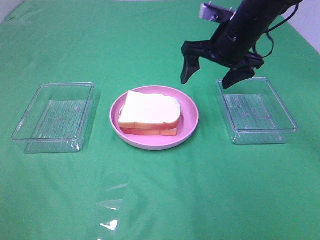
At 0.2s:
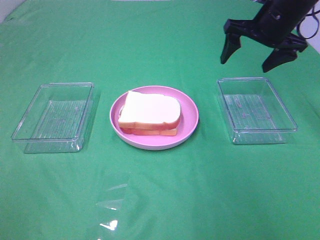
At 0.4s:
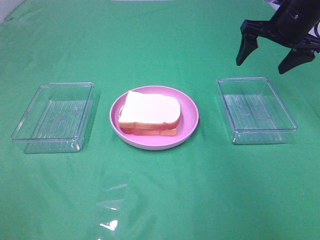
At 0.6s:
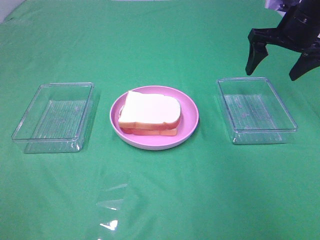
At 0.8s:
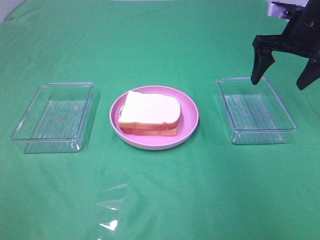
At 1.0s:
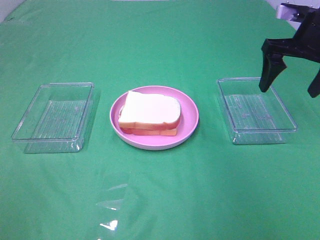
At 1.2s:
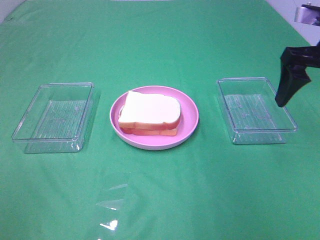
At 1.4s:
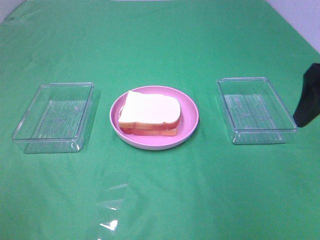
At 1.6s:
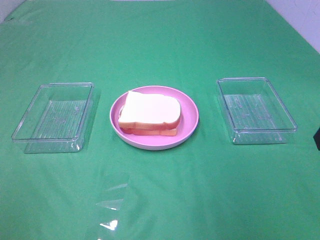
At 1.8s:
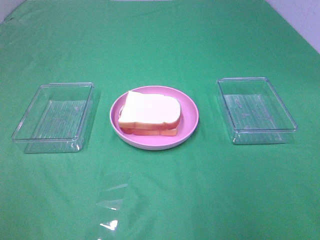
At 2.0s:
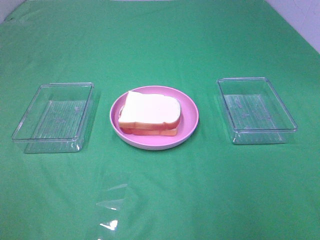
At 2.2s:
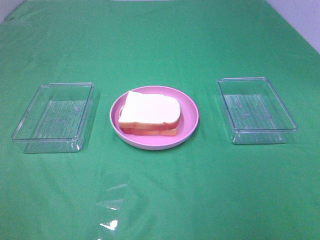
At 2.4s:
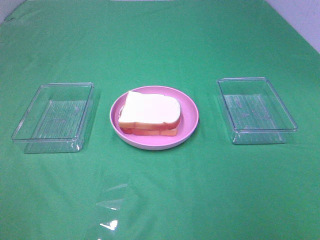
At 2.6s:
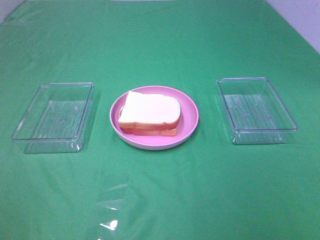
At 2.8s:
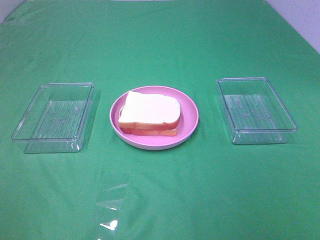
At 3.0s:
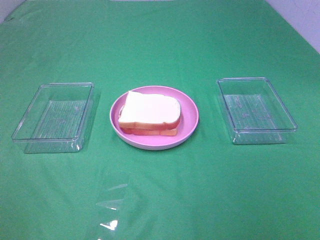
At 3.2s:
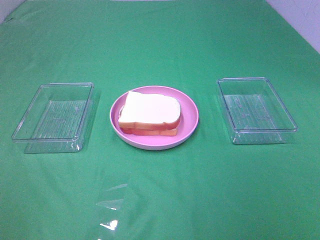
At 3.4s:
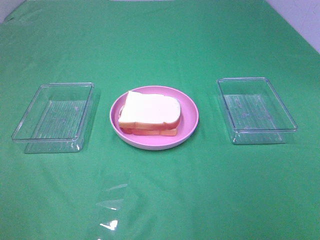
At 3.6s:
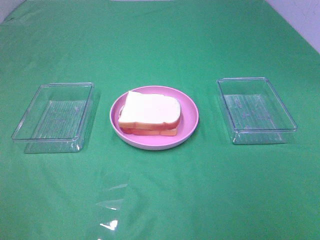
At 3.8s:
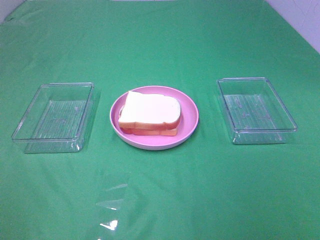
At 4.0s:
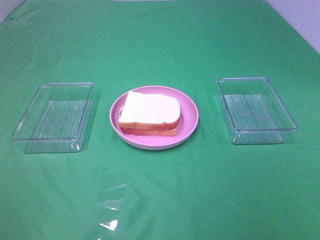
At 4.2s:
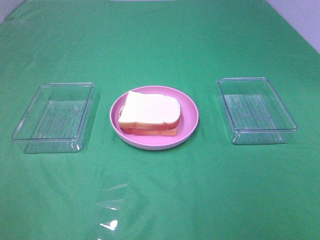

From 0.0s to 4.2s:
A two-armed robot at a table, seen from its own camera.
Task of the whole recording: Make sandwiches.
From 0.0s to 1.4s: The right gripper heads backward and to the right, covering roughly 20 cm.
From 1.4s to 2.8s: The right gripper shifts about 25 cm backward.
From 2.8s to 4.2s: The two grippers keep their place.

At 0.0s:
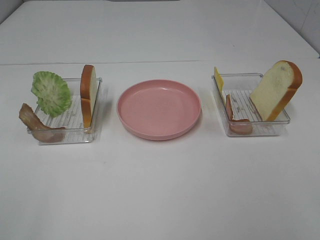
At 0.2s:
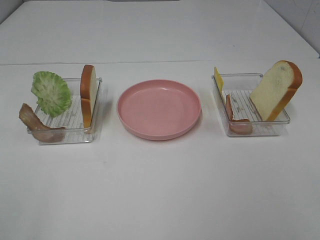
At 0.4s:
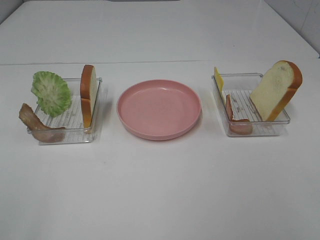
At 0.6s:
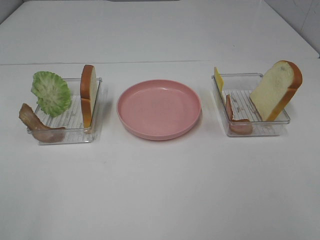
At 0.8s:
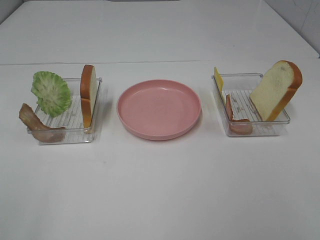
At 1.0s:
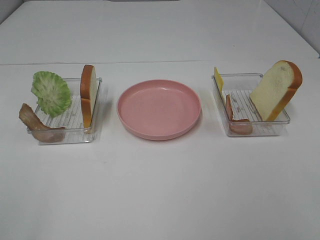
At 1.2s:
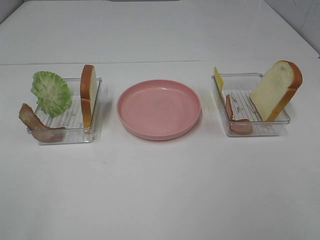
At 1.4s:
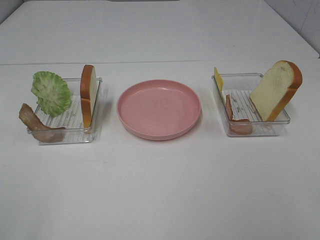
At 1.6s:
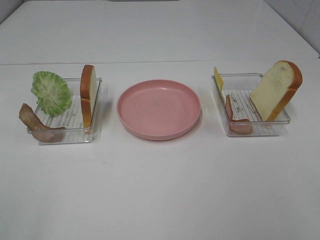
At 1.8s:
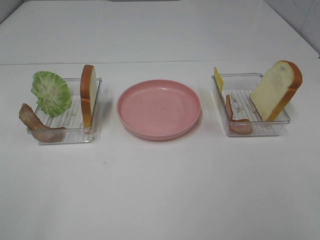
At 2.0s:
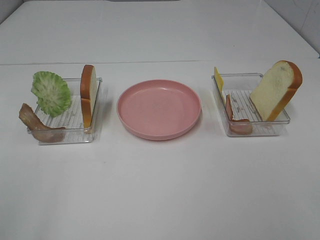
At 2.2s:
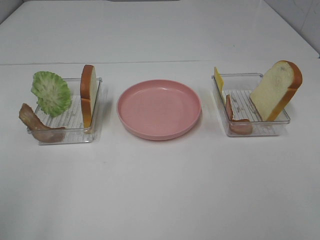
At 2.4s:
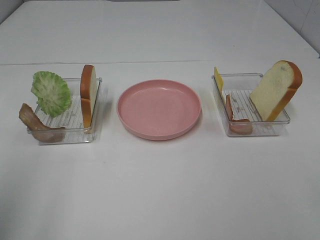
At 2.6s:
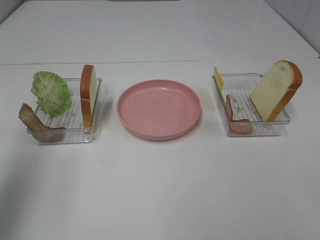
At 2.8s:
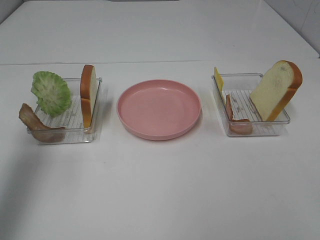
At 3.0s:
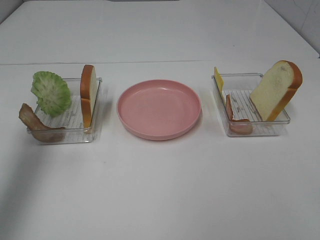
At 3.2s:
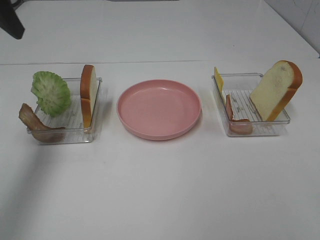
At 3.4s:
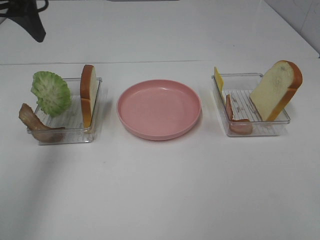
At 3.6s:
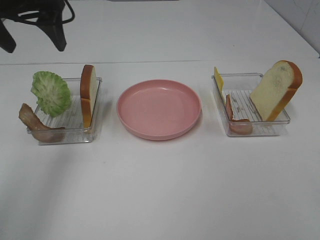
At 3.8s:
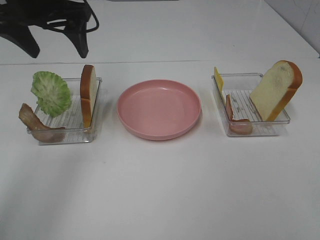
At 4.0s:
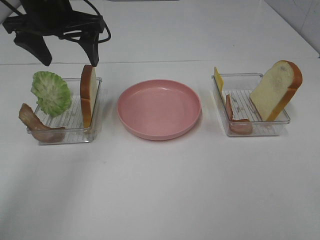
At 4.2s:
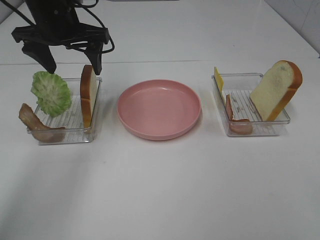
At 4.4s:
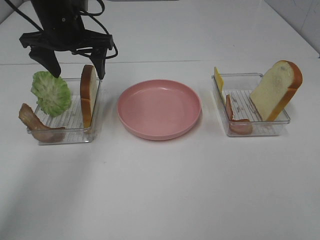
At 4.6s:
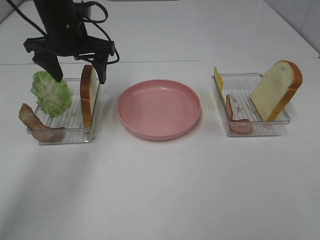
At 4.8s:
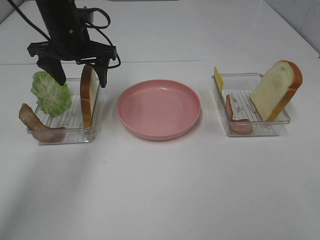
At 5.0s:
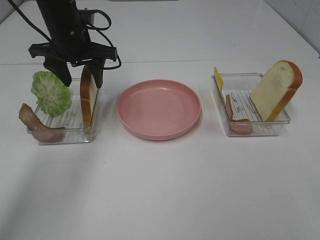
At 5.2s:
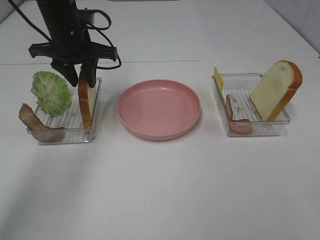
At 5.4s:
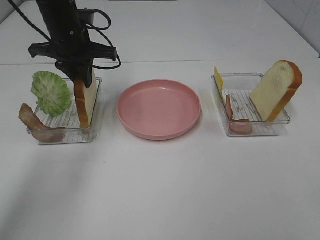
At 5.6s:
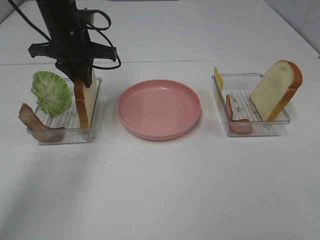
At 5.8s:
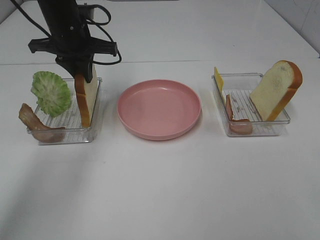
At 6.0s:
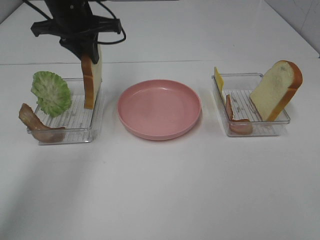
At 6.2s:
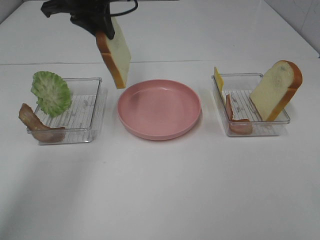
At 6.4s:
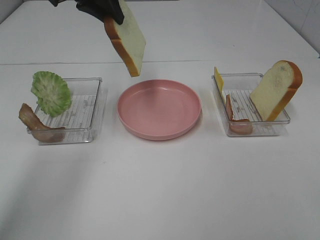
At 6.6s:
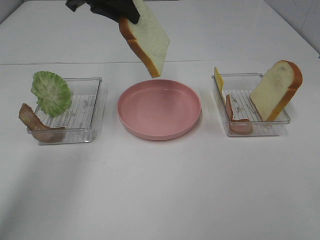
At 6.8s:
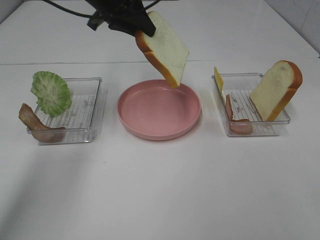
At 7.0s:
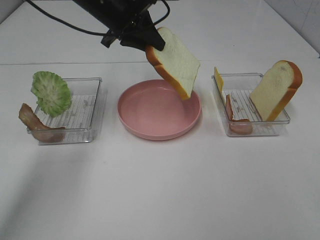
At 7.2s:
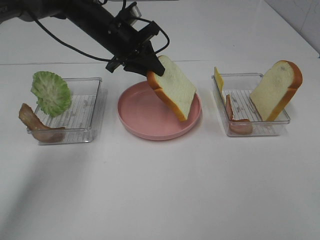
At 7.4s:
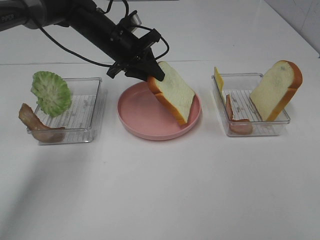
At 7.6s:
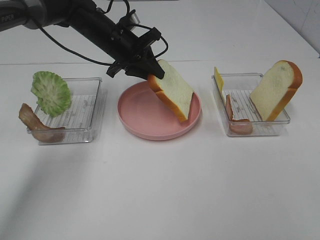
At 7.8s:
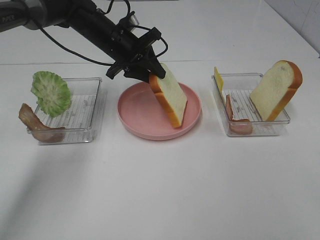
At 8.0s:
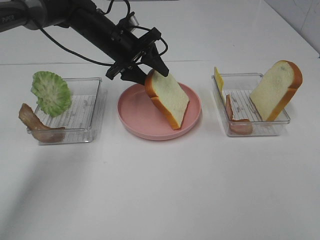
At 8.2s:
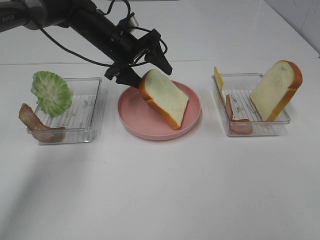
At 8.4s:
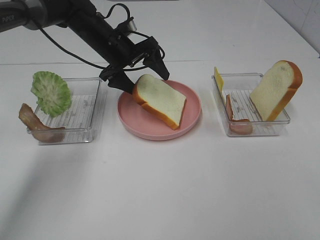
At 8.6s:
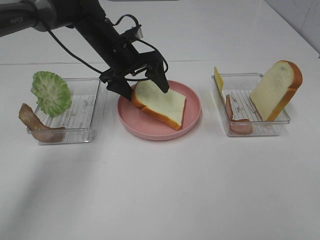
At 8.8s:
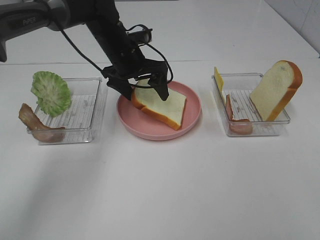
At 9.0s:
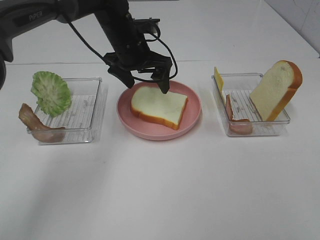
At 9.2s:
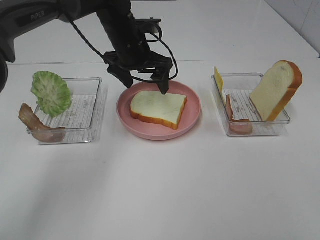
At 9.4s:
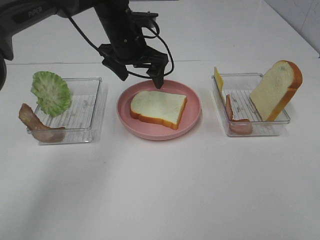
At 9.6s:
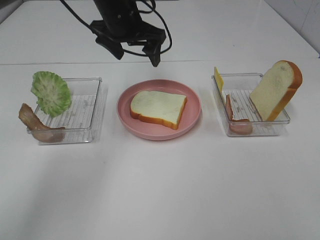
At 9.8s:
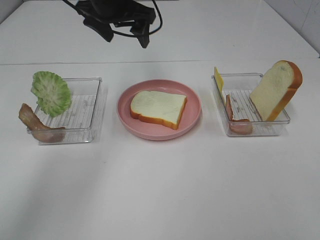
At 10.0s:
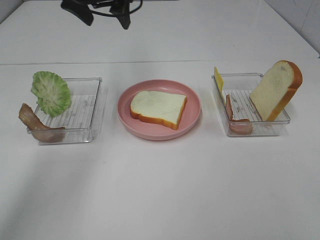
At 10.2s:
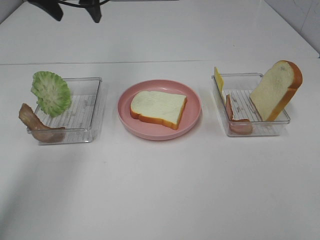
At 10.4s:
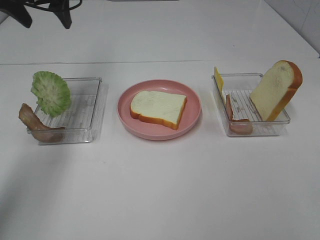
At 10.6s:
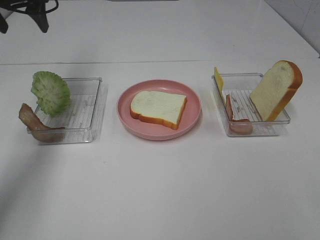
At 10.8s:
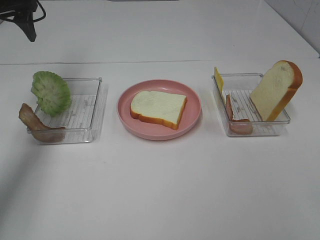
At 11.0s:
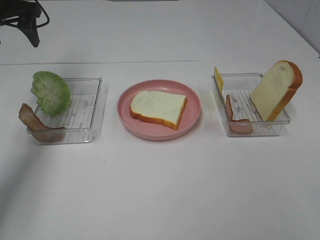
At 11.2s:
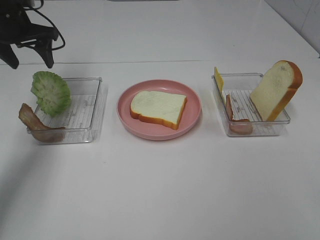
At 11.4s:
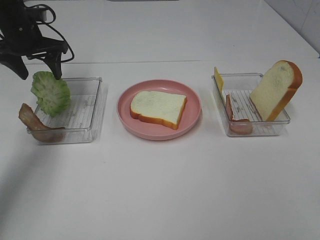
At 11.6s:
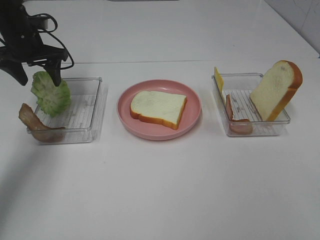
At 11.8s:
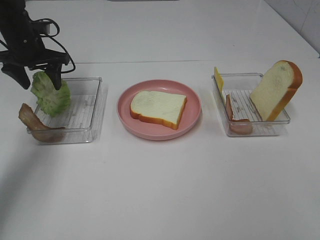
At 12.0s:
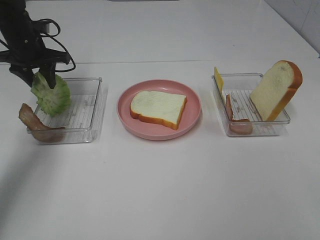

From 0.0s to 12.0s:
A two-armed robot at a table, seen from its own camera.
Task of the whole recording: Make sandwiches.
Step, from 0.0s to 5.2s: Left hand:grab the bread slice.
Step, from 5.4s to 9.0s: Left hand:place the bread slice on the plate.
From 0.0s to 1.6s: Both grippers stay put.
From 1.6s to 3.0s: The left gripper heads forward, covering about 30 cm.
From 3.0s to 4.4s: The left gripper is displaced forward, to the right and downward by roughly 25 cm.
From 4.4s to 6.0s: The left gripper closes.
From 6.0s to 7.6s: The left gripper heads downward and to the right, covering approximately 10 cm.
From 7.6s to 9.0s: The left gripper opens its fingers.
From 9.0s to 10.4s: The left gripper travels to the left and upward by some 25 cm.
From 10.4s to 12.0s: The left gripper is displaced downward by about 15 cm, and closes up.

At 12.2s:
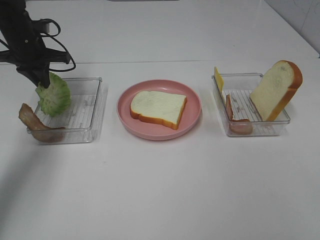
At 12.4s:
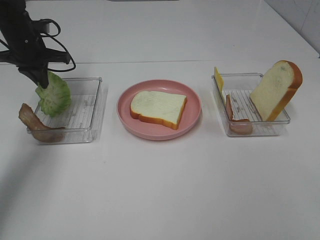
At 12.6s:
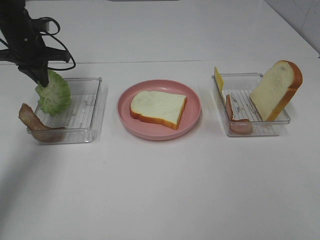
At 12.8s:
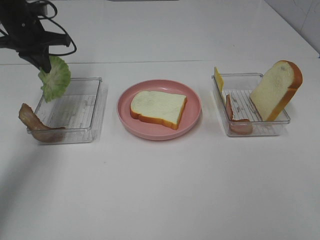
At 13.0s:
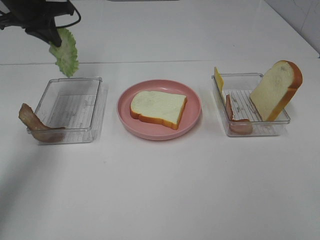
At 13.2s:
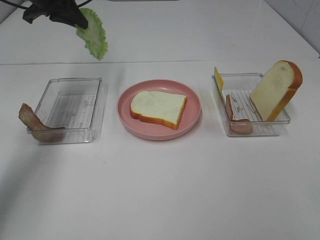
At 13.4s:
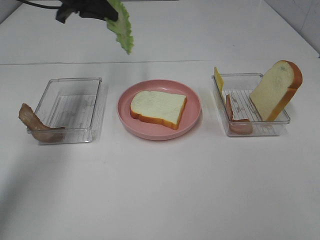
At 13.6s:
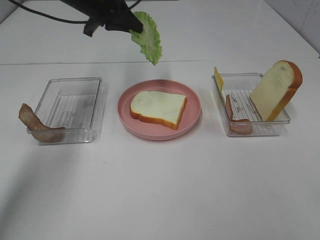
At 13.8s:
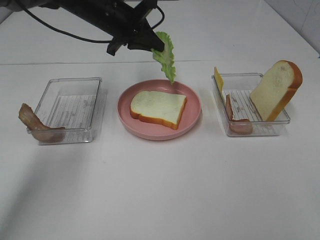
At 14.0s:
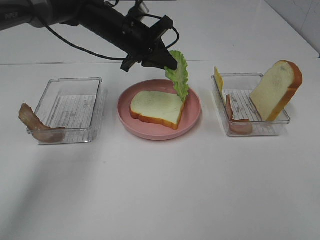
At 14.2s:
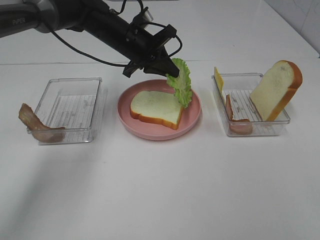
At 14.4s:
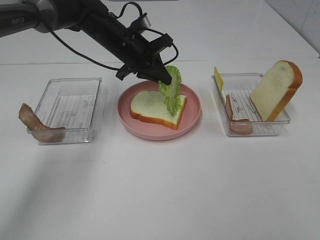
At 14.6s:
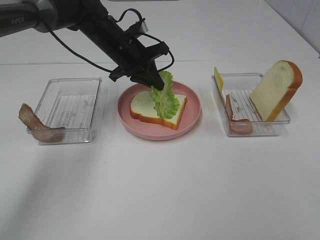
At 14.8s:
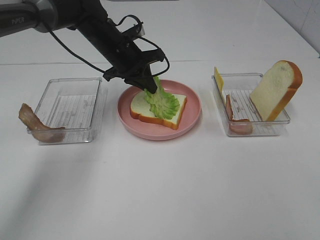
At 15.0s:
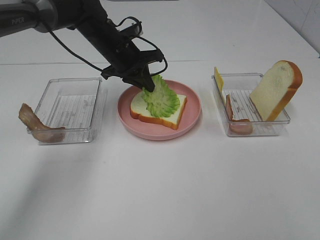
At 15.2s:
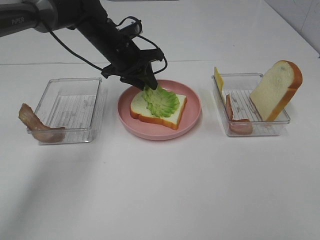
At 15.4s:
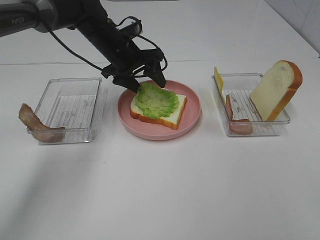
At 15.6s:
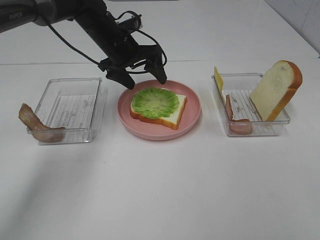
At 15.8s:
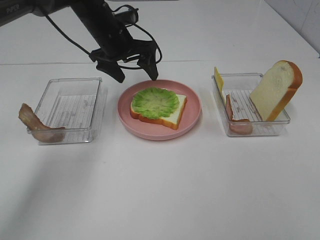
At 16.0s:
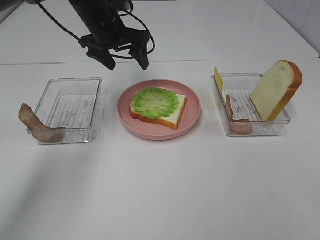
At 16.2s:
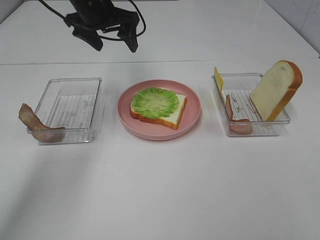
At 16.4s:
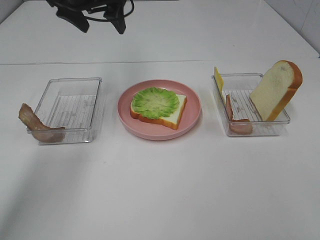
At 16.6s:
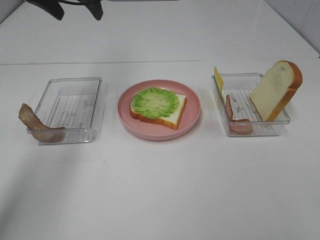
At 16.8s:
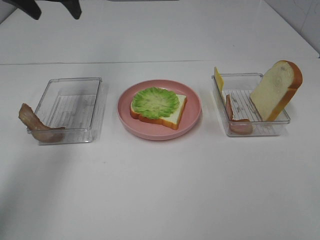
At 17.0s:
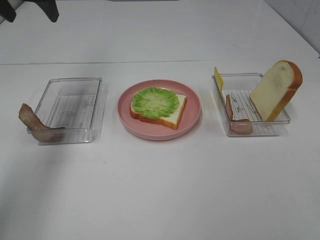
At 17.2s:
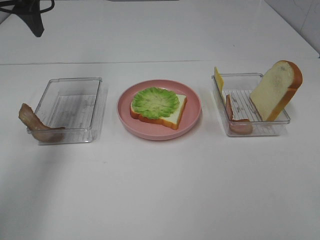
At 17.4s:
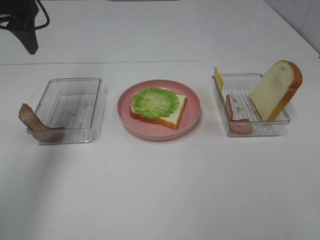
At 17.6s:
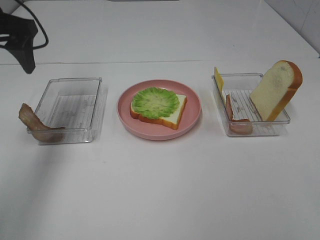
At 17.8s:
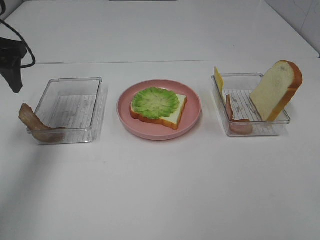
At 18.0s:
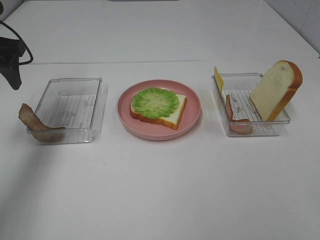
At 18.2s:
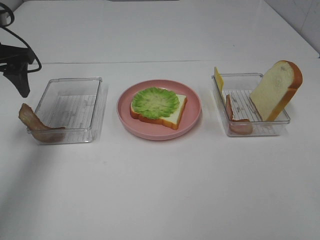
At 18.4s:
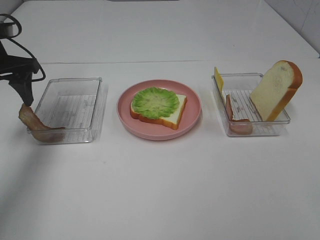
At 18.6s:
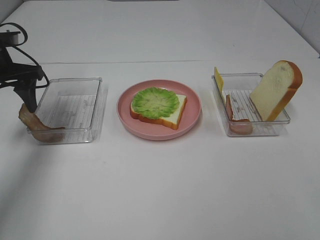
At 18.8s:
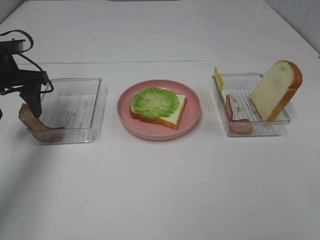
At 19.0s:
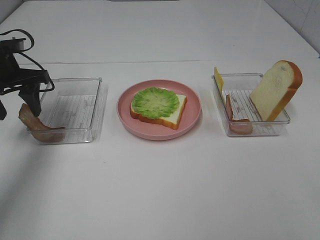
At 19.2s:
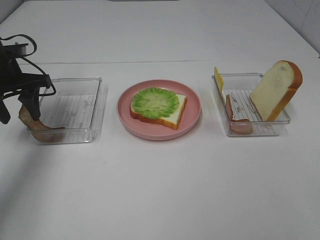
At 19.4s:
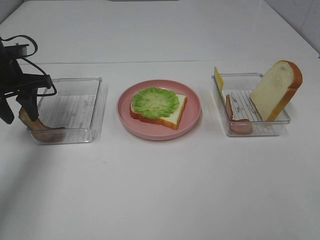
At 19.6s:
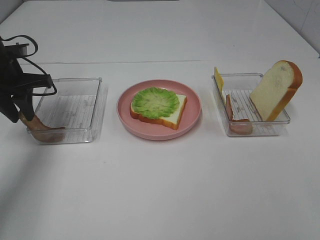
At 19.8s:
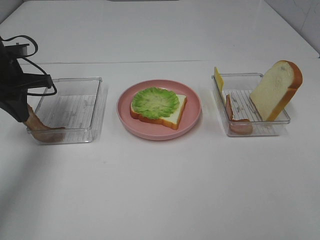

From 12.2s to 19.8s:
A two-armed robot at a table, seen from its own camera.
Task of the whole recording: Make sandwiches.
Step, from 12.6s to 15.6s: Left hand:place the lettuce slice on the bread slice.
Step, from 15.8s to 19.8s: Left hand:grab the bacon.
From 12.2s to 13.8s: The left gripper goes approximately 20 cm to the right.
From 13.8s to 15.2s: The left gripper is displaced downward by about 5 cm, and opens up.
From 15.2s to 16.8s: The left gripper shifts some 25 cm upward and to the left, and opens.
From 16.8s to 18.2s: The left gripper goes roughly 15 cm downward, backward and to the left.
From 18.2s to 19.8s: The left gripper goes some 5 cm downward, and closes.
